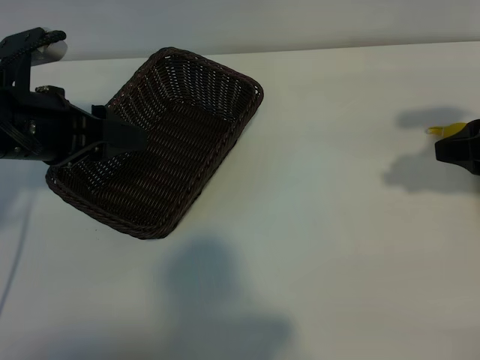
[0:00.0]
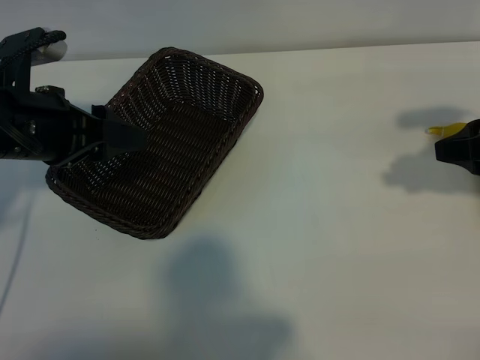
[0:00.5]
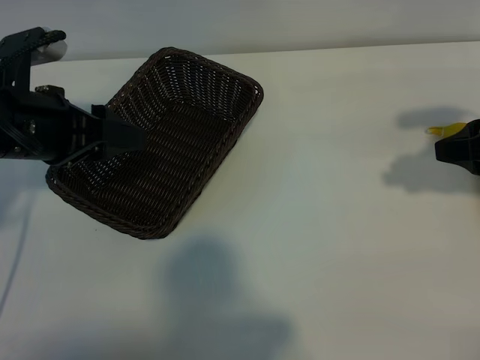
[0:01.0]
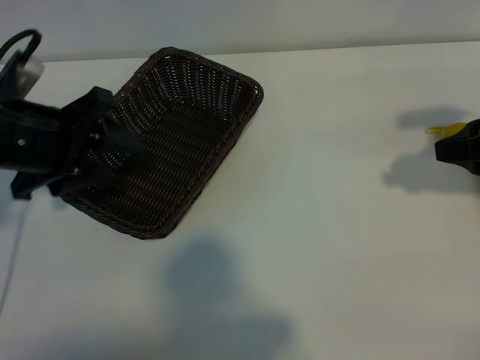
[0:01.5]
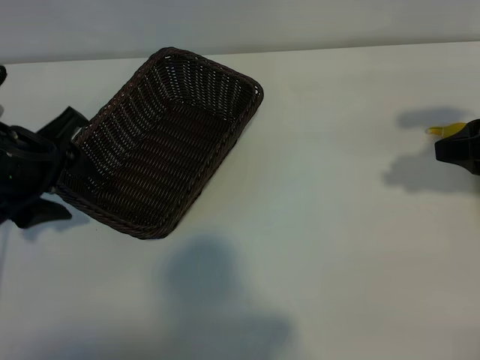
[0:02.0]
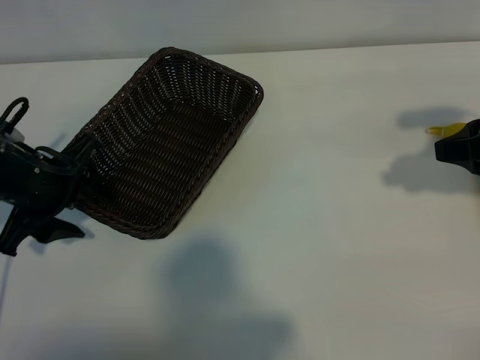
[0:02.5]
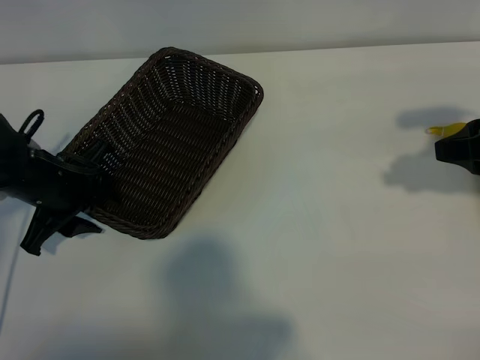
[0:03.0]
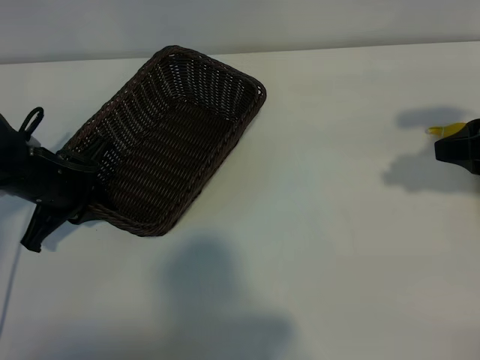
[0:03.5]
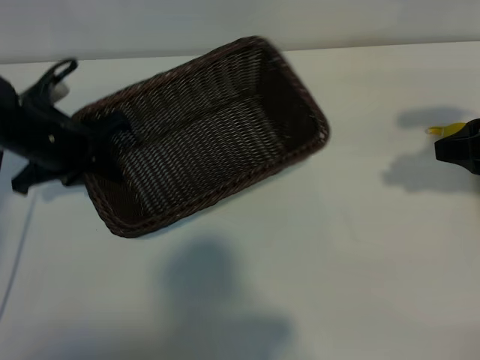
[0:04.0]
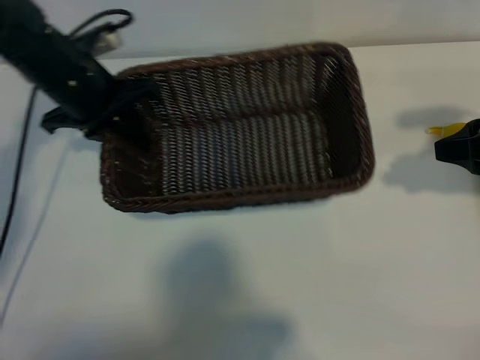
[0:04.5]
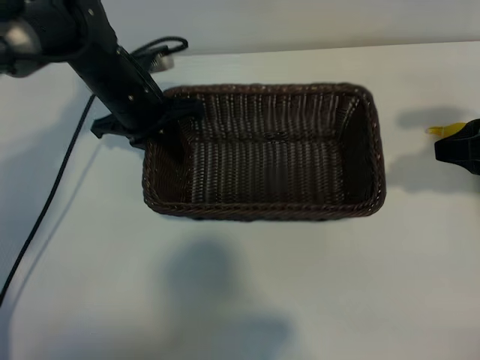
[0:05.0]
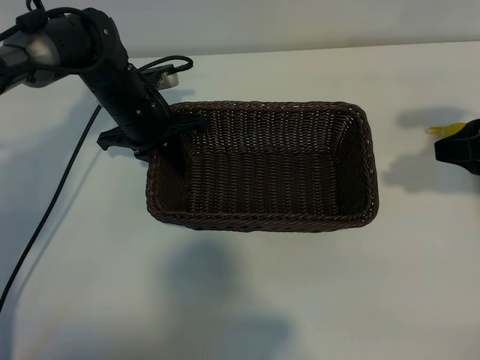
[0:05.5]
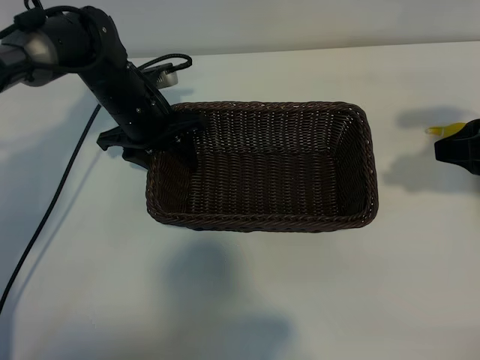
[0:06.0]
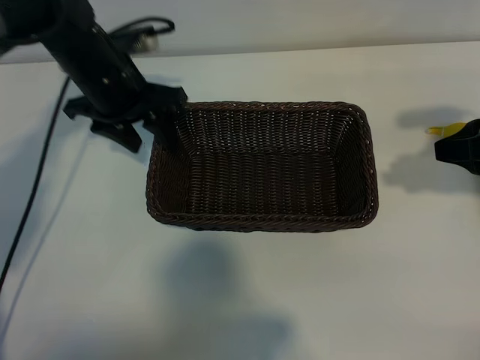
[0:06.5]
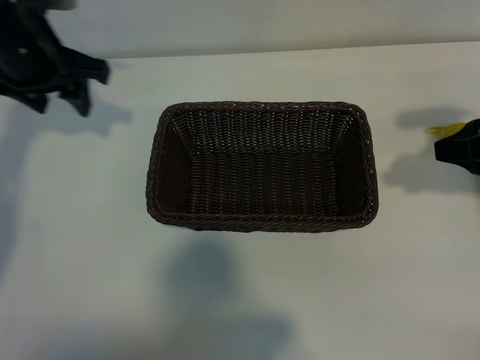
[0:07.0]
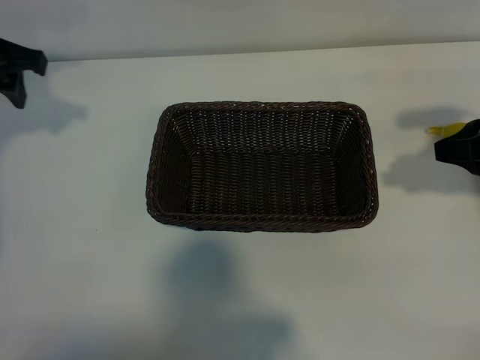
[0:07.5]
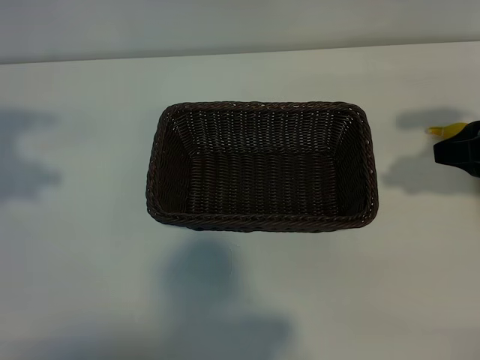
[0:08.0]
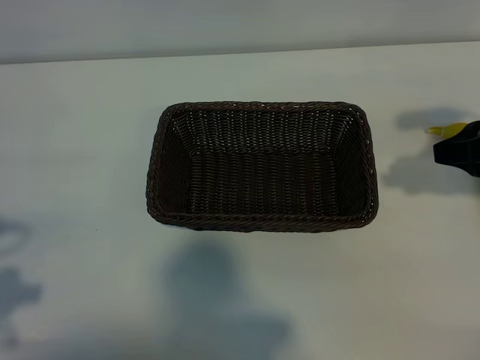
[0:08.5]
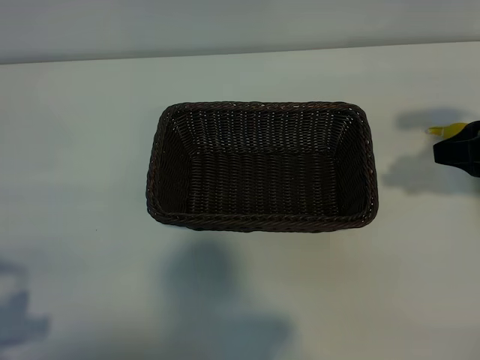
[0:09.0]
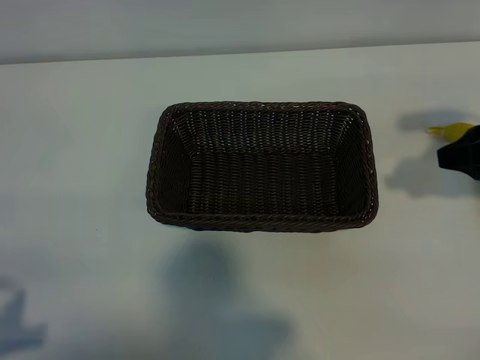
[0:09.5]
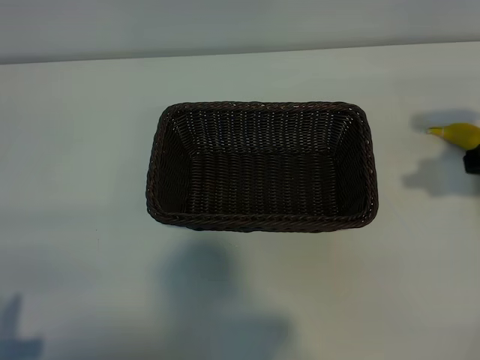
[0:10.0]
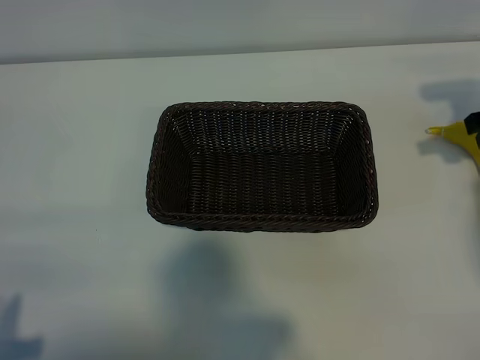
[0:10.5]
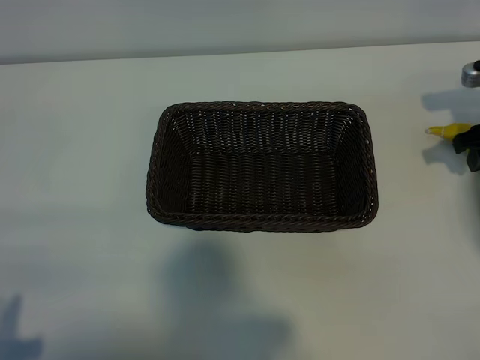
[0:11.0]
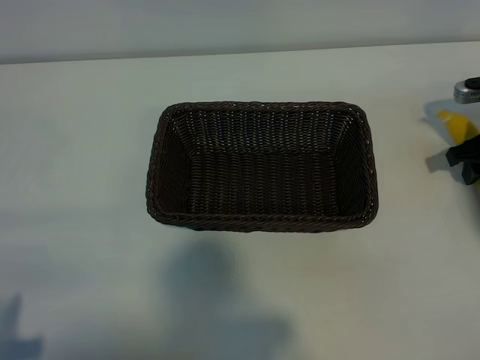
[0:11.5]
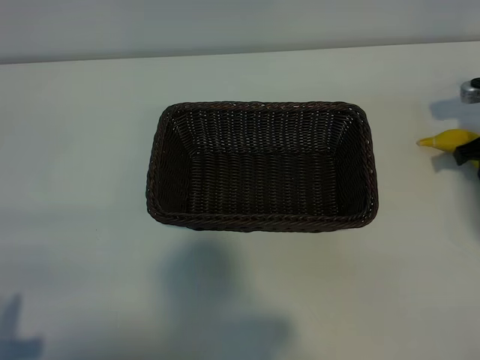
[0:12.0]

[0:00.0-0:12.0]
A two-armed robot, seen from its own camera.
Task of the whole recording: pick up the banana and put it into the basket.
Step, 0:01.5 to 0:03.0: Grasp the basket with the left gripper.
Step, 0:03.5 to 0:05.5: Place the basket in the center of the table with the left gripper.
Step, 0:06.0 to 0:11.5: Grasp the banana with right gripper.

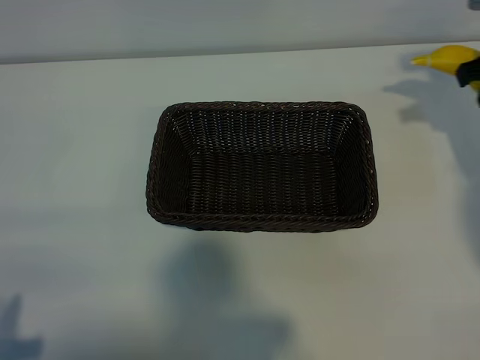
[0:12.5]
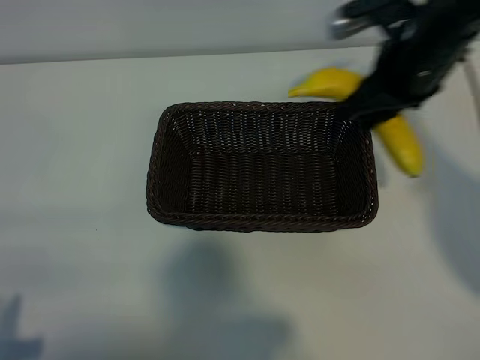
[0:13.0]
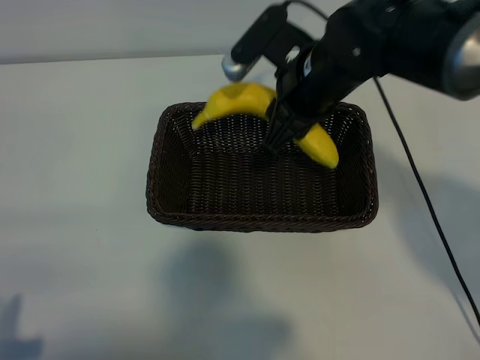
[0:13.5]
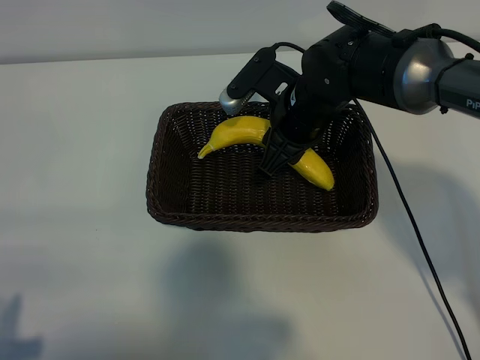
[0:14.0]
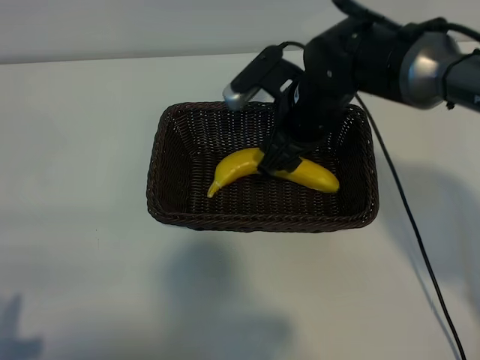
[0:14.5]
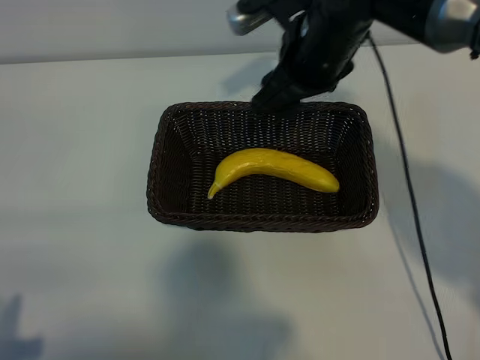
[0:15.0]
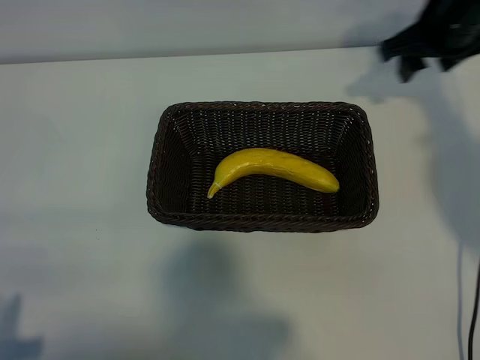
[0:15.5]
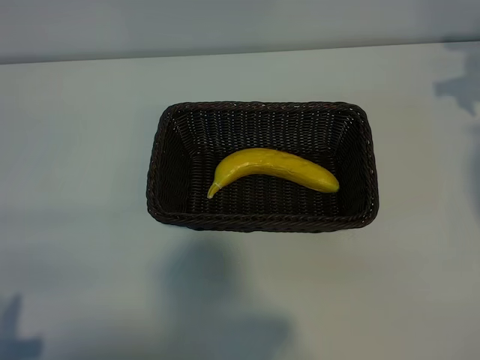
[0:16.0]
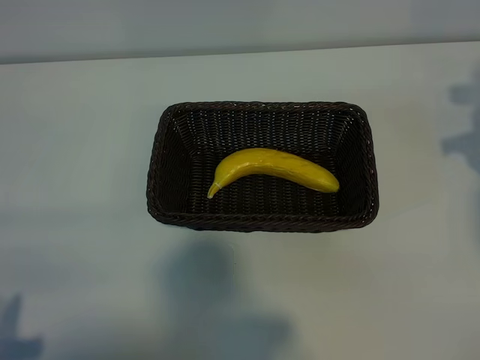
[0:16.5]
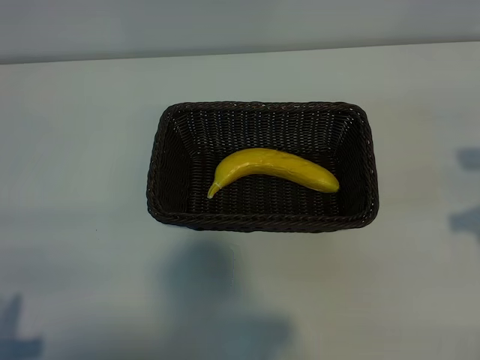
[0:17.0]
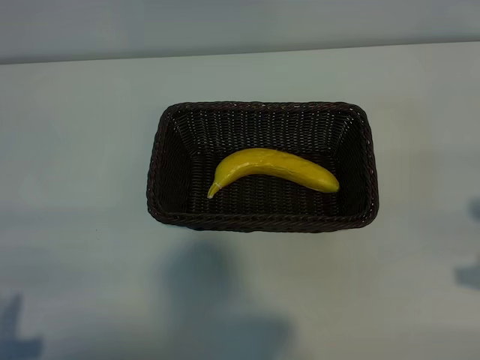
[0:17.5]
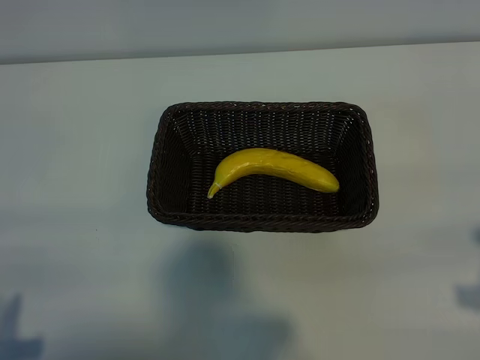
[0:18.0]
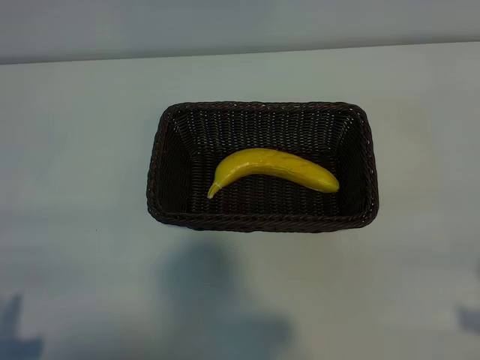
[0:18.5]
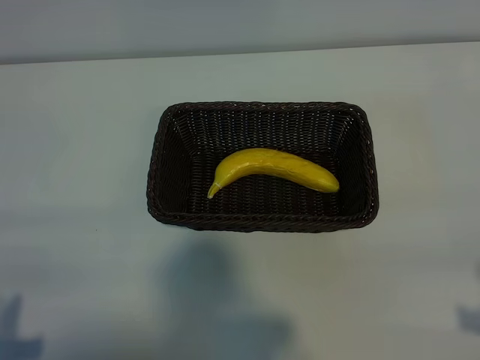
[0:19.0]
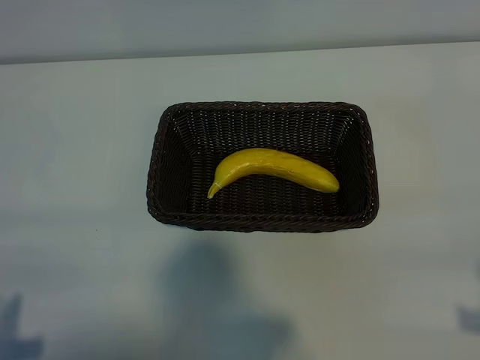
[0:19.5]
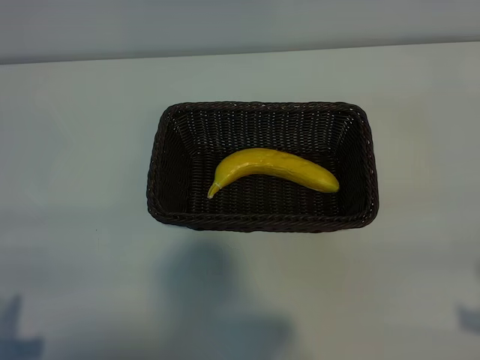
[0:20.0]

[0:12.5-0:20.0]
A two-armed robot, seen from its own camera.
Task of the whole recording: pick up the banana and put it into the basket.
Step, 0:12.5 to 0:14.0: Place the banana in the basket with right gripper.
